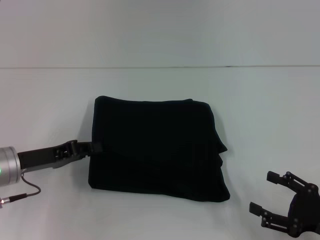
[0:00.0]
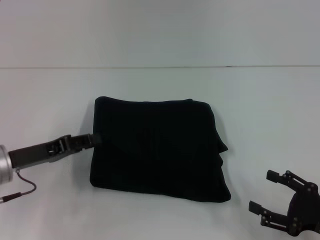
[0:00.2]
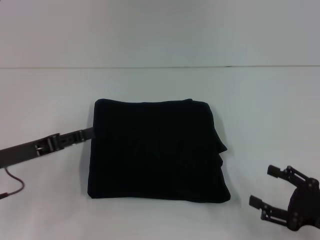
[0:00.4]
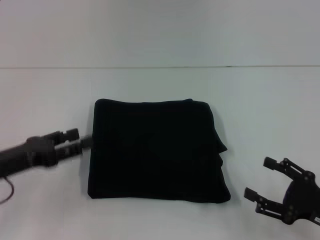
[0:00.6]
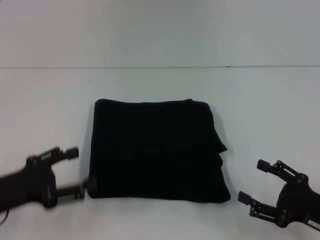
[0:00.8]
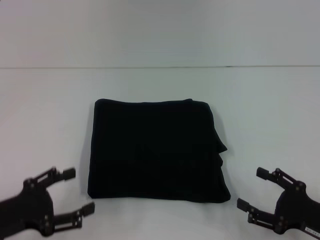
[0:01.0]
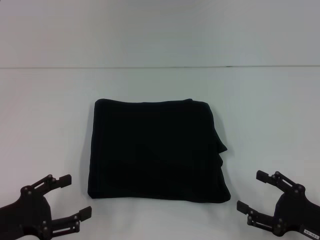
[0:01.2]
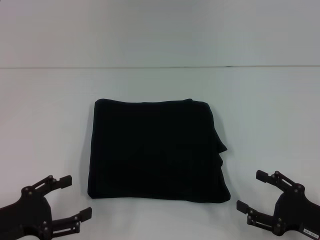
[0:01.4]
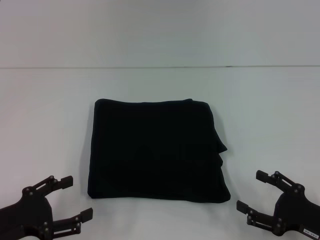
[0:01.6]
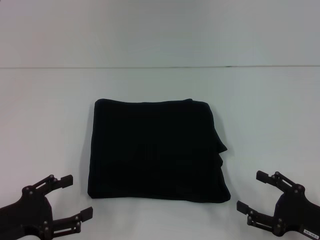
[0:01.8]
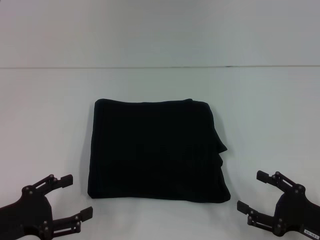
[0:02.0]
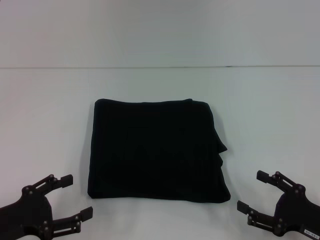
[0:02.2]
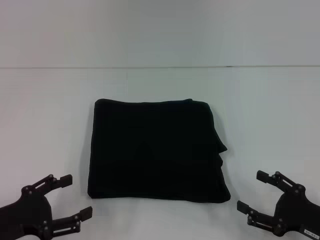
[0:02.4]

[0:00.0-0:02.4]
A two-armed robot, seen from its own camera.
0:00.0 to 0:01.2: The left gripper travels backward by approximately 10 cm, and opens up.
0:01.2 to 0:02.4: Both grippers stay put.

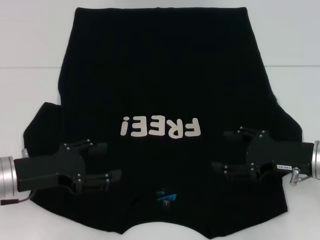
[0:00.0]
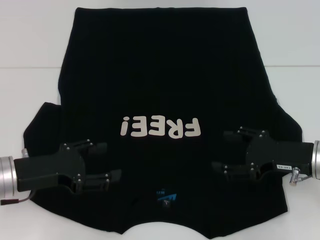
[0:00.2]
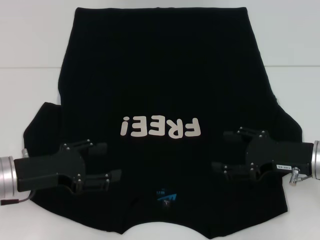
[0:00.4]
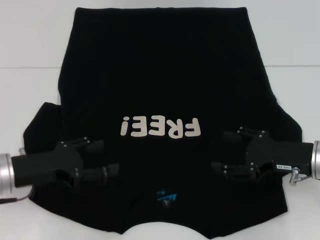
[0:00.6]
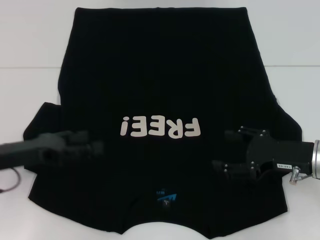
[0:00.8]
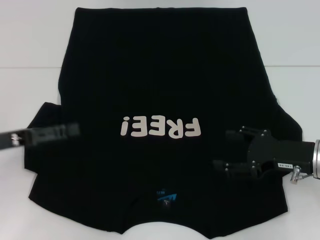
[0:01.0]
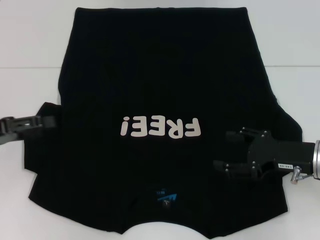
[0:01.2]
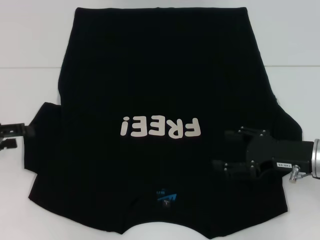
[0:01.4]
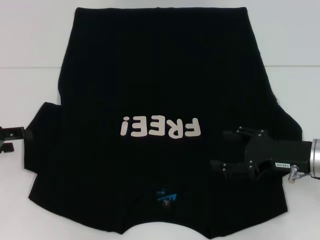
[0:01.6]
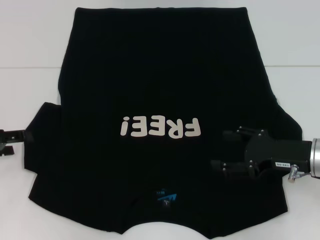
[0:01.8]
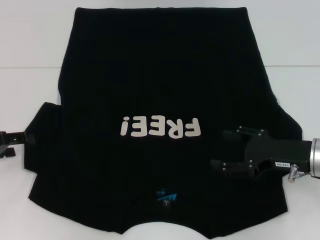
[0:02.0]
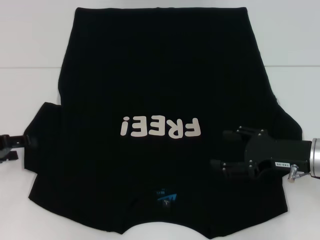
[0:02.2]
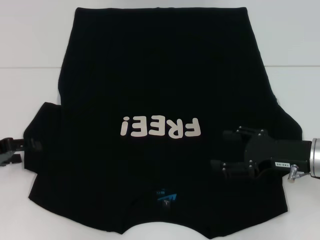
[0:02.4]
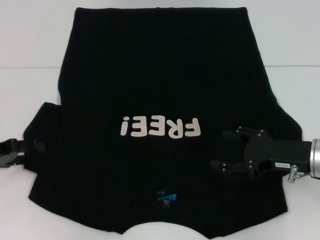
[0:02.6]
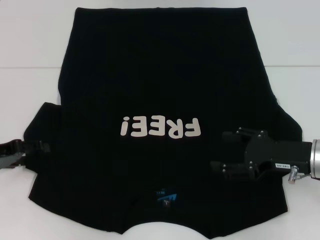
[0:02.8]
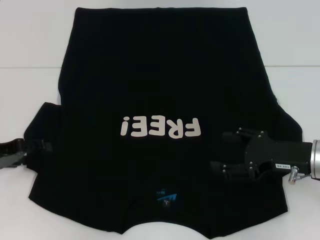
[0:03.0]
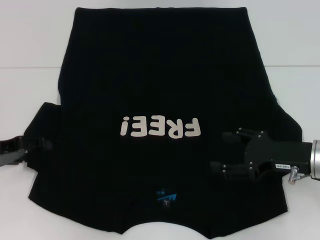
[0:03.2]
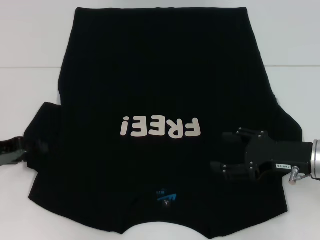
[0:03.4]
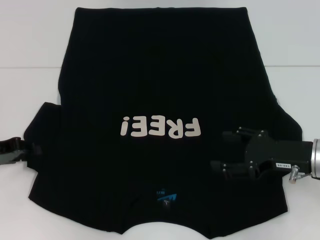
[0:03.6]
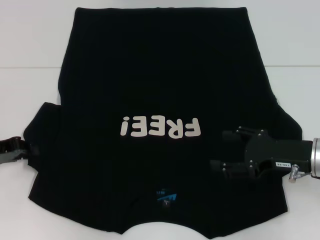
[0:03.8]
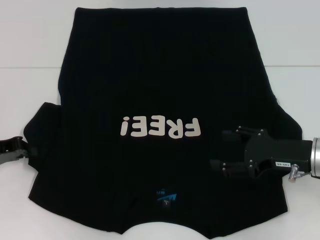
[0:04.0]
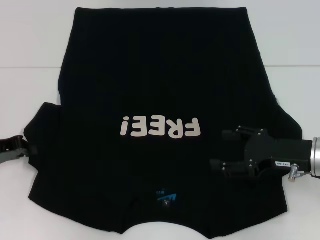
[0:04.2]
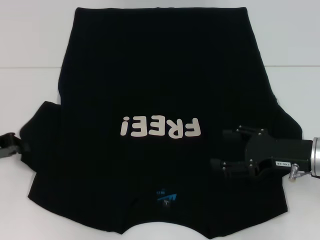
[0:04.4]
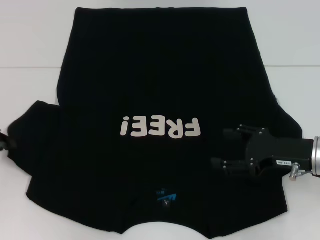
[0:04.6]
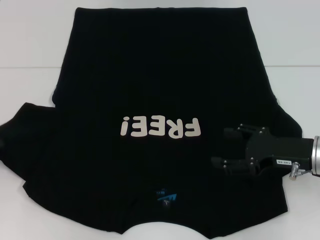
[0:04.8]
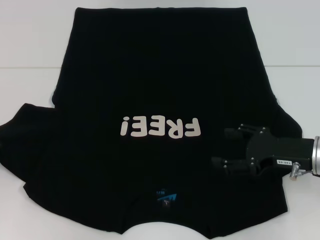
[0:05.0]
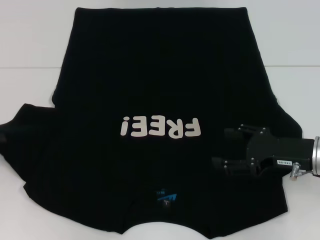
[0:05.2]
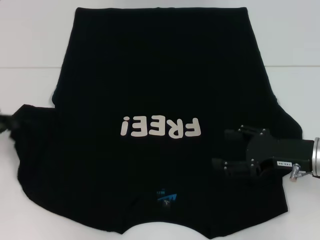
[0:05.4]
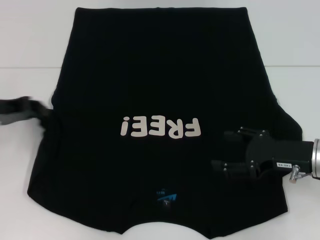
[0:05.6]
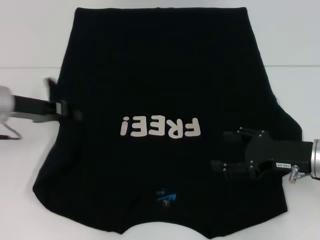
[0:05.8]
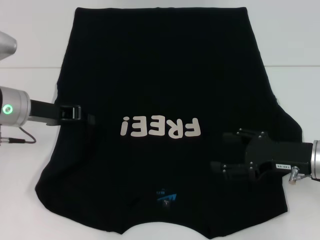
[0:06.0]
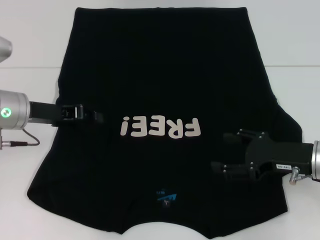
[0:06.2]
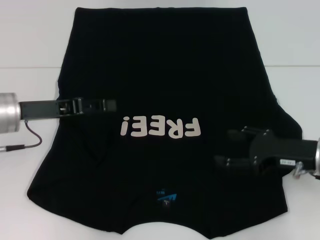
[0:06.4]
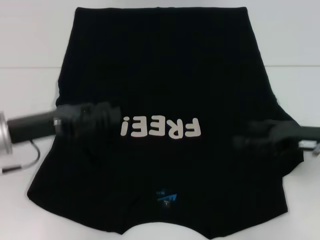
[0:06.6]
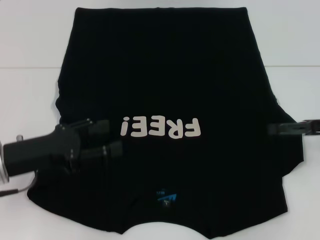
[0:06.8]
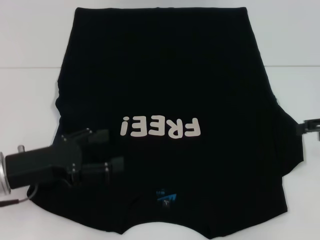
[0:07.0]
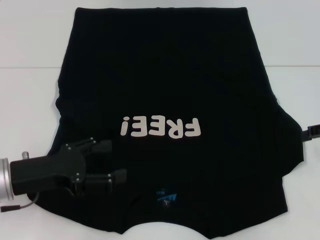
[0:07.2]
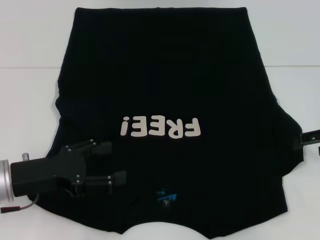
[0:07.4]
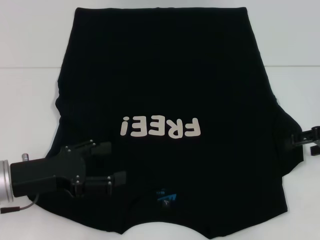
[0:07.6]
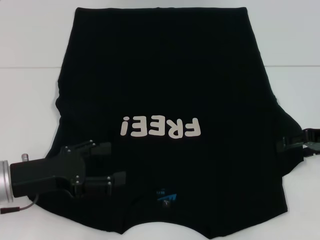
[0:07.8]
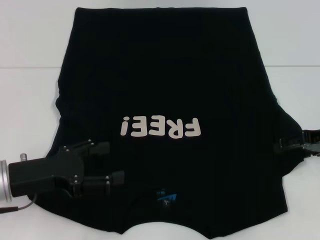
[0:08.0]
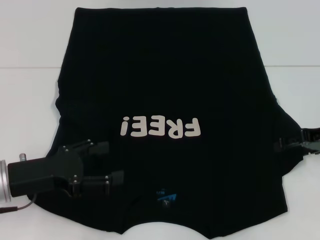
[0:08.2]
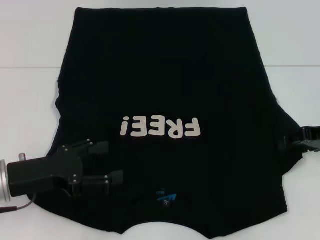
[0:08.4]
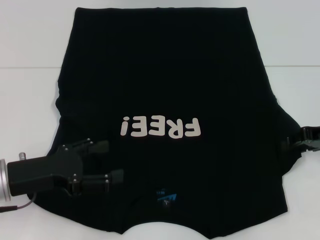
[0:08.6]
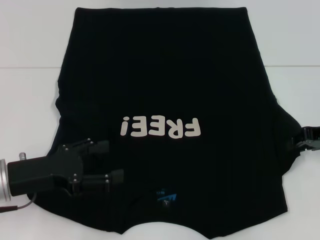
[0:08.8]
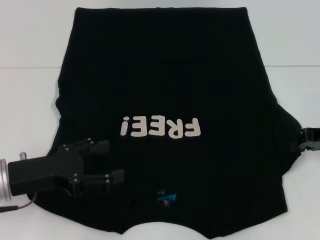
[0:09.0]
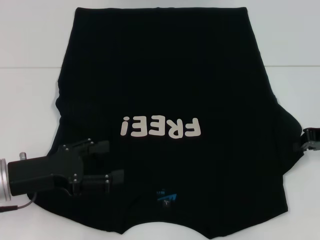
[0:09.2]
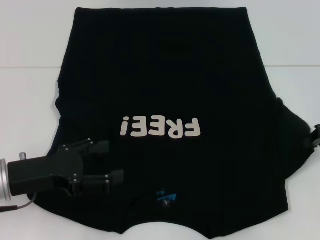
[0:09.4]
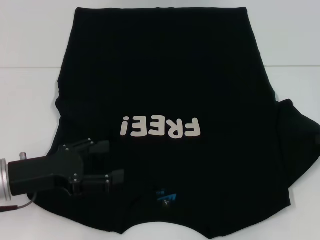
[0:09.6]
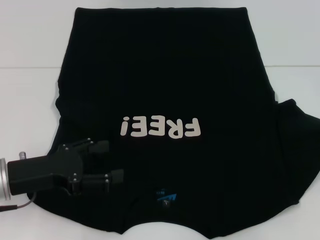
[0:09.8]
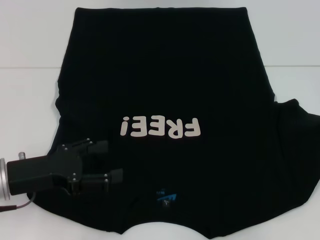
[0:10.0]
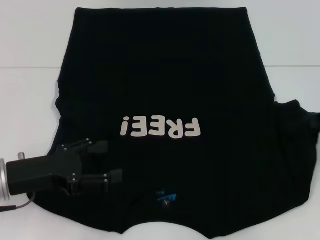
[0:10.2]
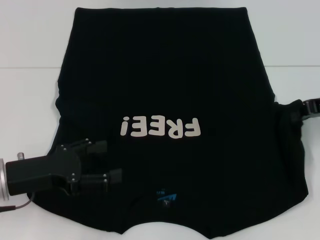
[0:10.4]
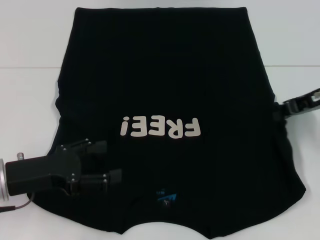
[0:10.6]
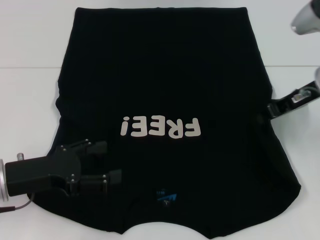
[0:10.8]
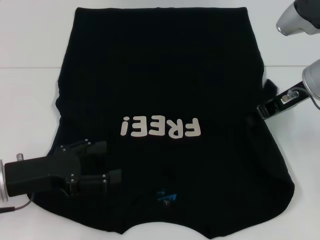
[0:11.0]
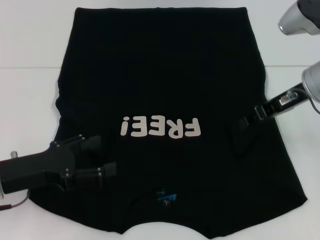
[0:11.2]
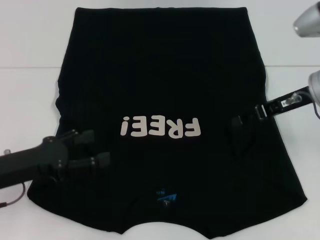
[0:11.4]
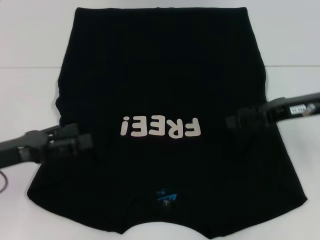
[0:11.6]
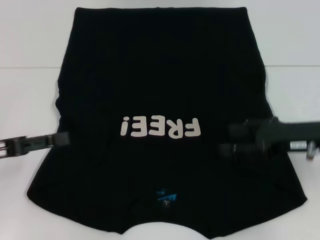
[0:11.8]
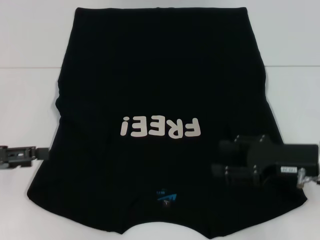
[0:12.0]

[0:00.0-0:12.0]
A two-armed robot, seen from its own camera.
Step, 0:00.0 to 0:06.2: Fold the bottom left sleeve with your left hand.
Step, 0:06.4 to 0:11.2: Fold the bottom right sleeve with your right hand.
0:00.0 to 0:01.6: The left gripper moves to the left, approximately 10 cm.
0:01.6 to 0:03.0: The grippers stay close to where they were, moving slightly.
0:03.0 to 0:04.4: The left gripper closes.
0:04.4 to 0:06.0: The left gripper shifts approximately 10 cm to the right.
0:06.0 to 0:07.6: The right gripper travels to the right, upward and forward by about 10 cm. Meanwhile the left gripper travels backward by approximately 10 cm, and opens.
0:07.6 to 0:09.0: The right gripper closes its fingers.
0:09.0 to 0:10.4: The right gripper is displaced upward by roughly 5 cm.
0:10.4 to 0:12.0: The left gripper goes roughly 10 cm to the left, while the right gripper moves backward, downward and to the left, approximately 15 cm, and opens up.

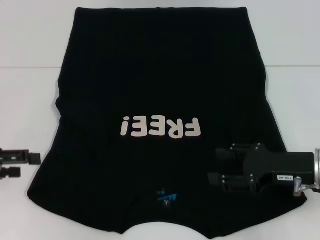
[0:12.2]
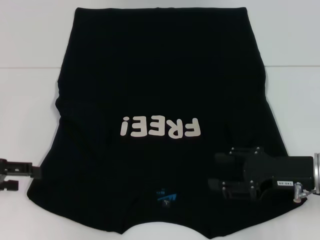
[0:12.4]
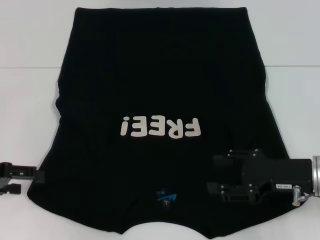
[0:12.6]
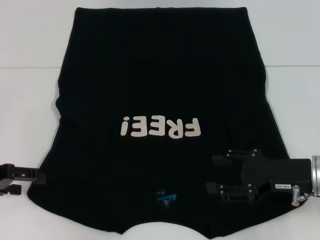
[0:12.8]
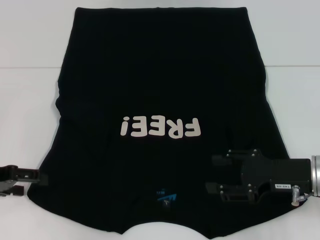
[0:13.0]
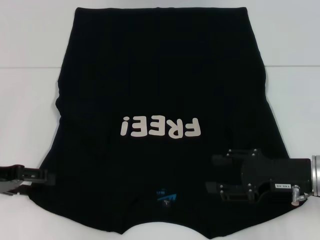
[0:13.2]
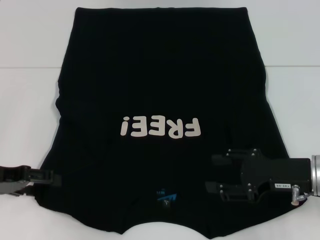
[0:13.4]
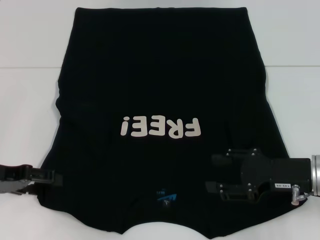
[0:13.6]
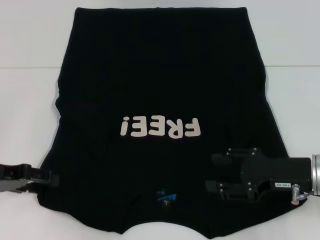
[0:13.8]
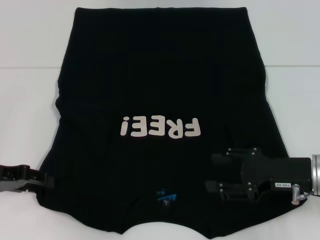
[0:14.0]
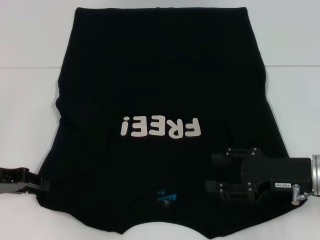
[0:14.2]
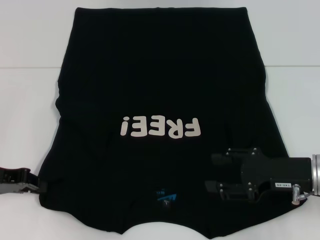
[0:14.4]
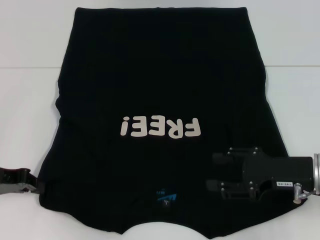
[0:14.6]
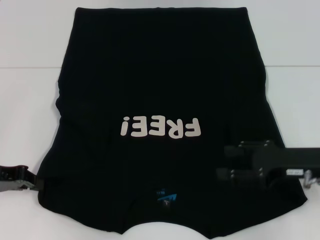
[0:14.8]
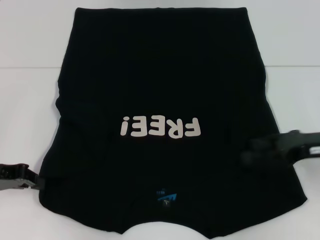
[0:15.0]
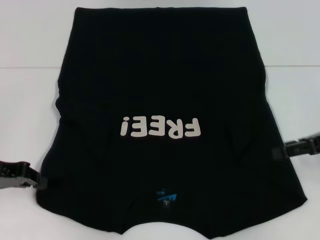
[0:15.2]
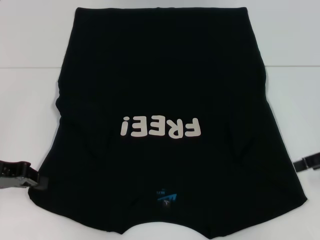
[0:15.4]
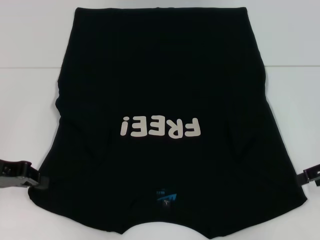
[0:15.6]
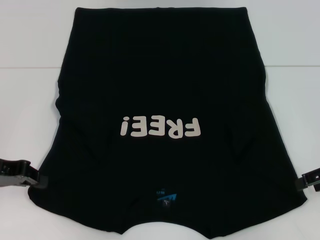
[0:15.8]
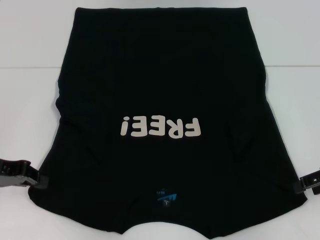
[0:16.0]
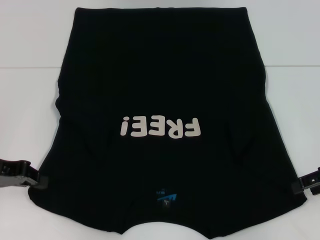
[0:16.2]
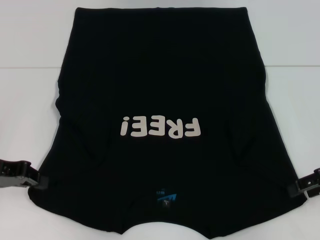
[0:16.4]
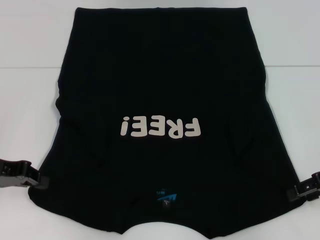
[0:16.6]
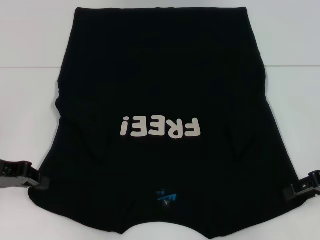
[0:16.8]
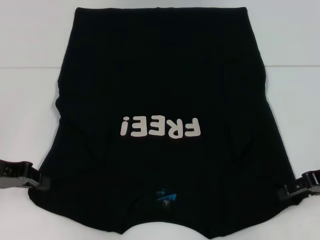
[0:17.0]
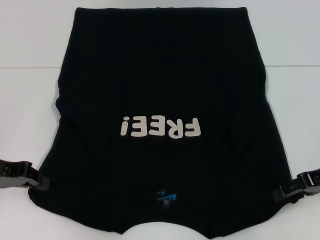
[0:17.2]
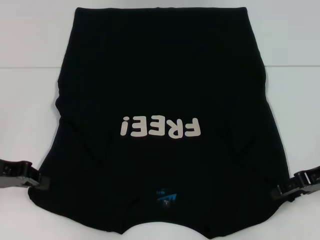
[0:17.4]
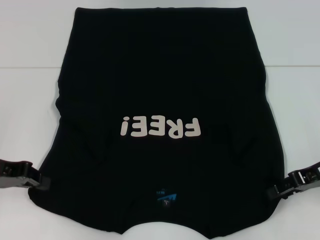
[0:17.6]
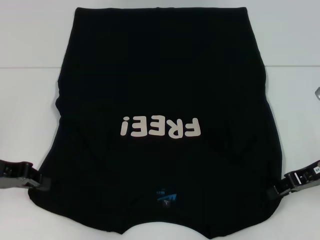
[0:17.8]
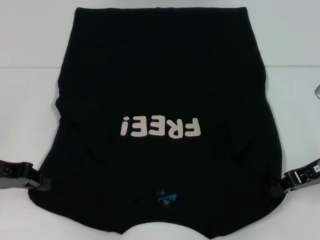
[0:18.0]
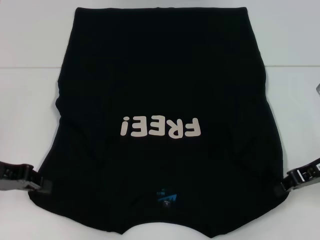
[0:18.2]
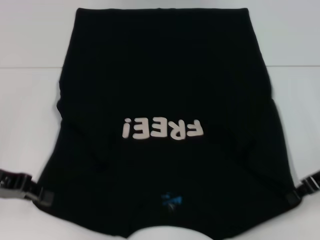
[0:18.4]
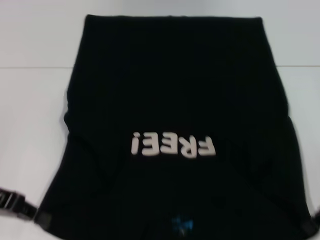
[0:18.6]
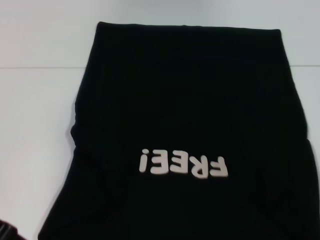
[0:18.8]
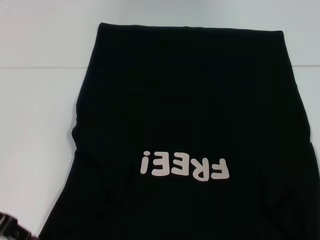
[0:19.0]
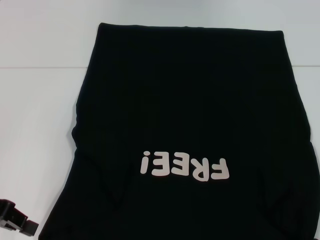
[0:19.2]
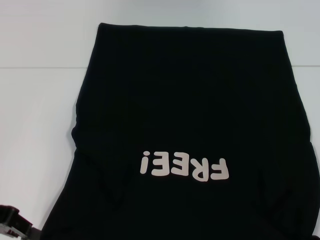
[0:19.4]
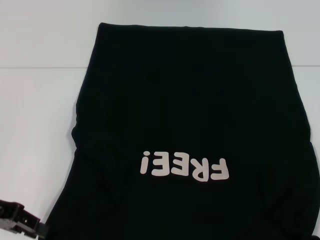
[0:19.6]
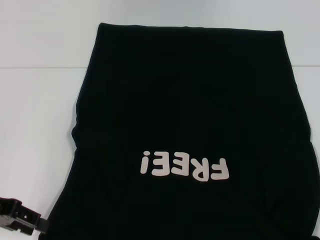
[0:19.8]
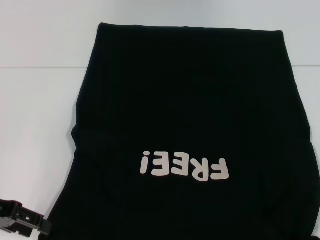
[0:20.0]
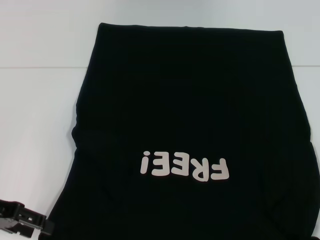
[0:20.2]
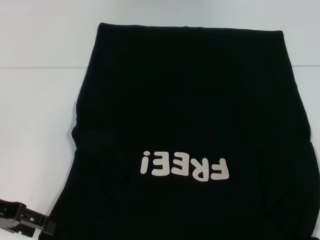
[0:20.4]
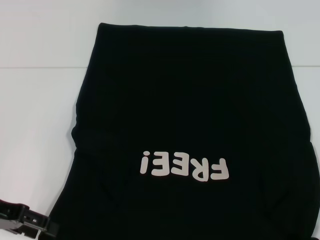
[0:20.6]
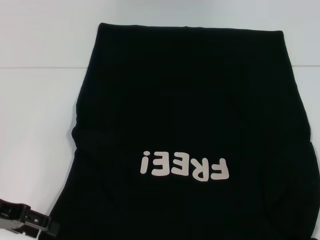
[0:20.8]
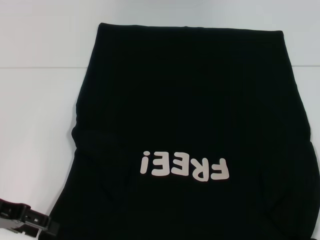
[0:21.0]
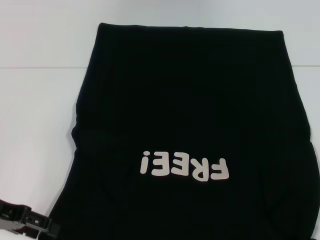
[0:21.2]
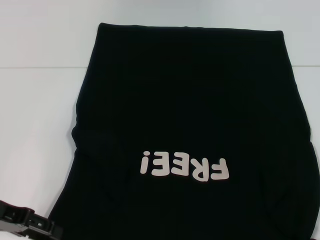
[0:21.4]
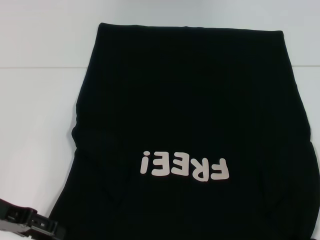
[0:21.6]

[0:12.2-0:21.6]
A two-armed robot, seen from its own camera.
Step, 0:12.2 to 0:18.0: Grab the bottom right corner with your right hand.
0:12.2 to 0:13.8: The left gripper changes place by roughly 5 cm.
0:13.8 to 0:15.4: The left gripper closes up. The right gripper heads to the right and upward, covering approximately 10 cm.
0:15.4 to 0:17.0: There are only small adjustments of the grippers.
0:17.0 to 0:18.4: The right gripper closes.
0:18.4 to 0:20.0: The left gripper opens.
0:20.0 to 0:21.6: The grippers move only a little.
